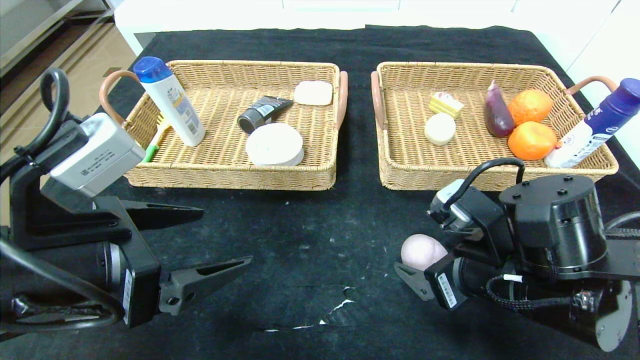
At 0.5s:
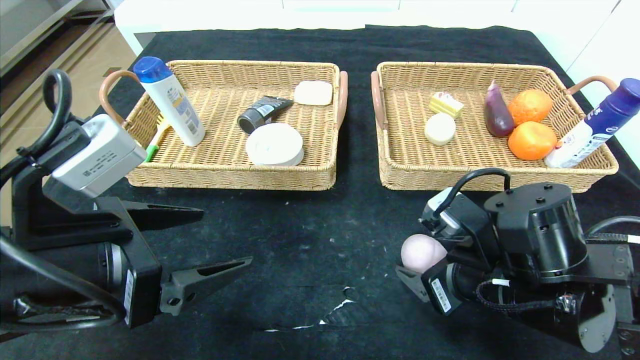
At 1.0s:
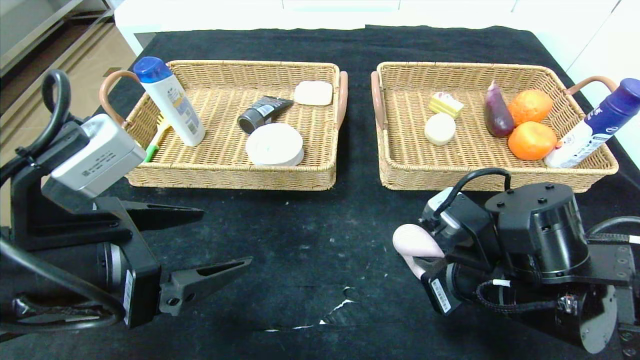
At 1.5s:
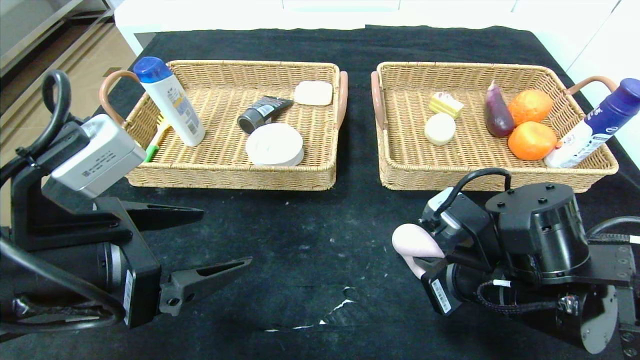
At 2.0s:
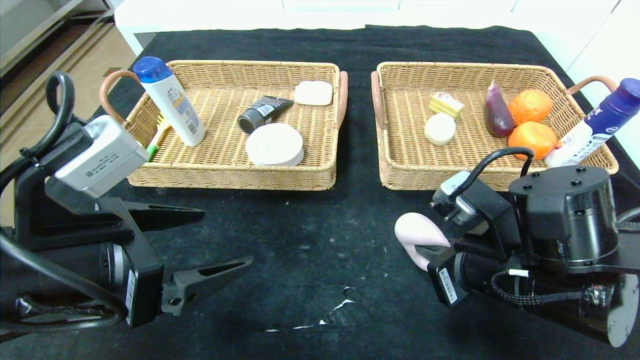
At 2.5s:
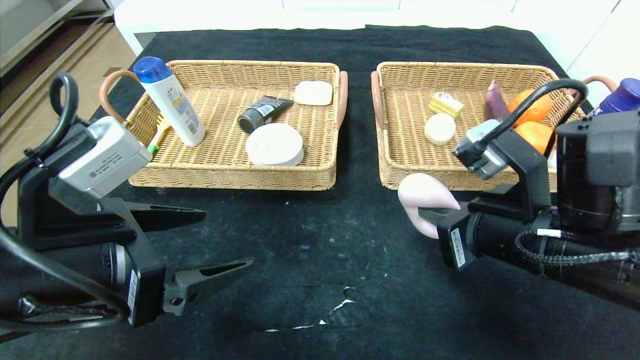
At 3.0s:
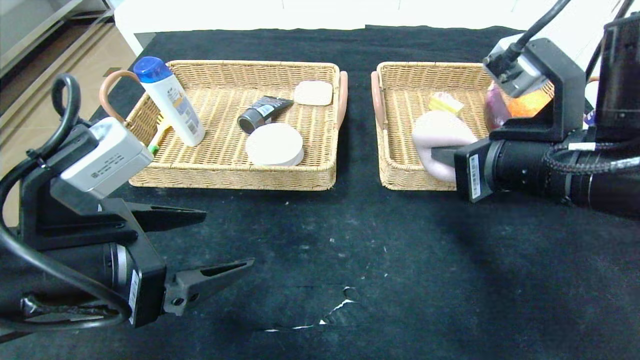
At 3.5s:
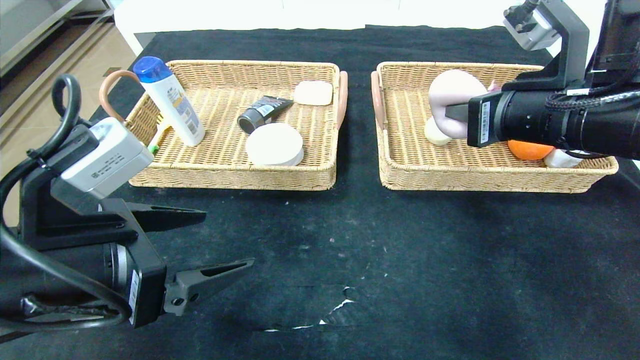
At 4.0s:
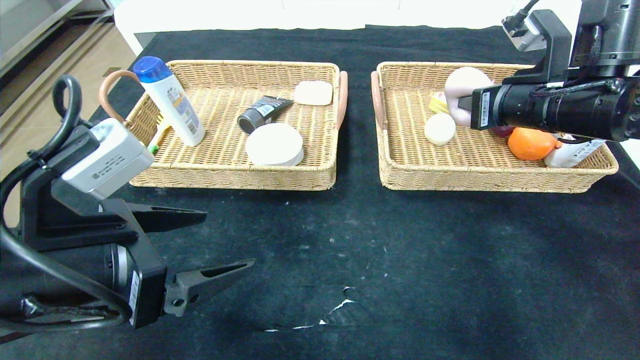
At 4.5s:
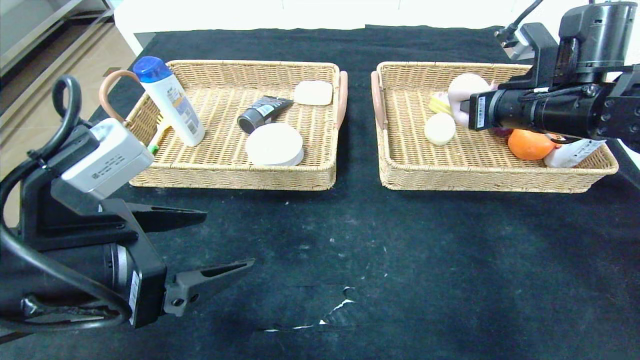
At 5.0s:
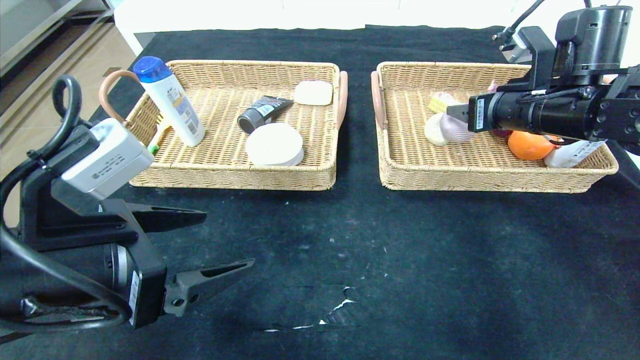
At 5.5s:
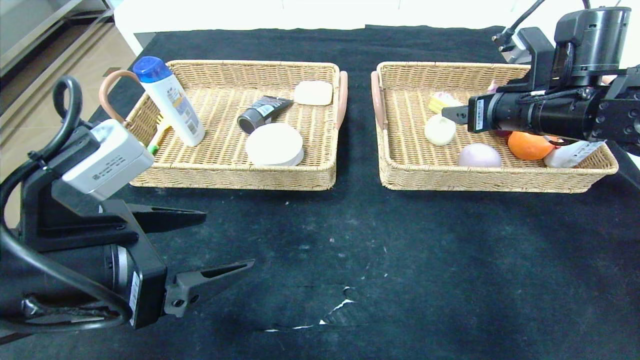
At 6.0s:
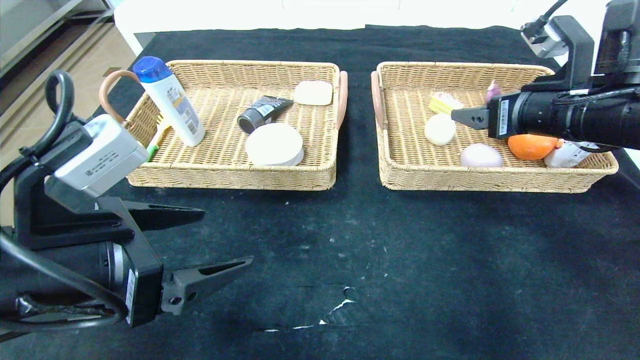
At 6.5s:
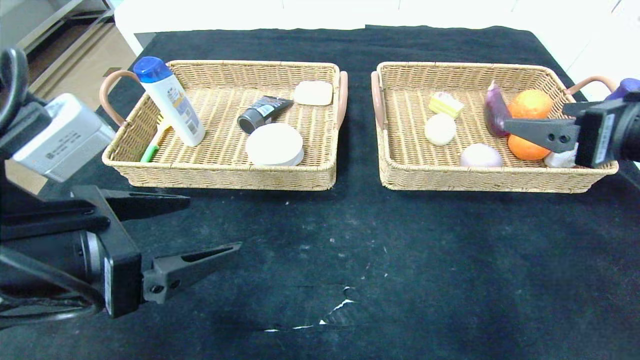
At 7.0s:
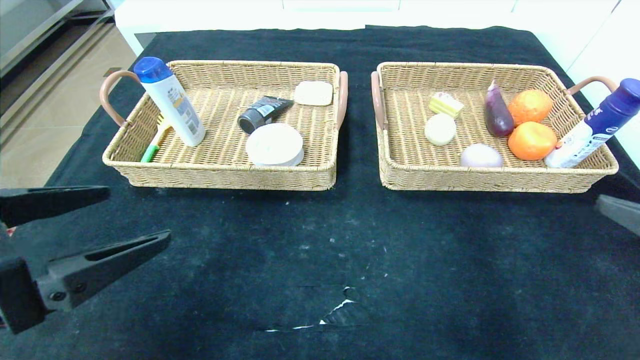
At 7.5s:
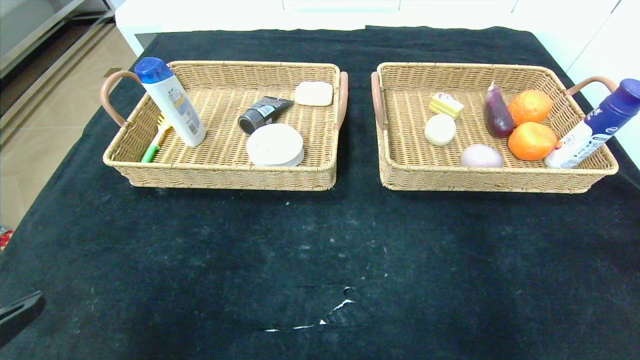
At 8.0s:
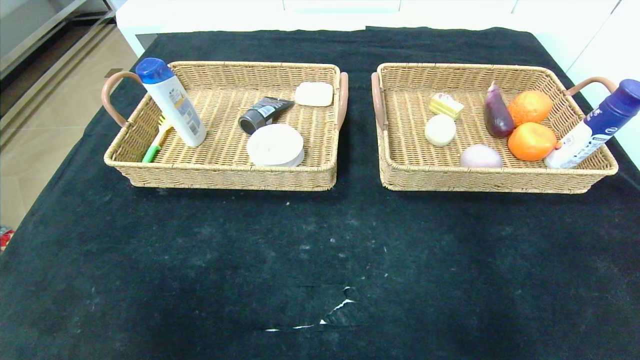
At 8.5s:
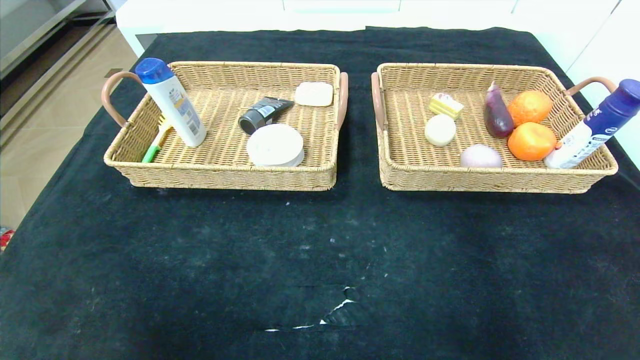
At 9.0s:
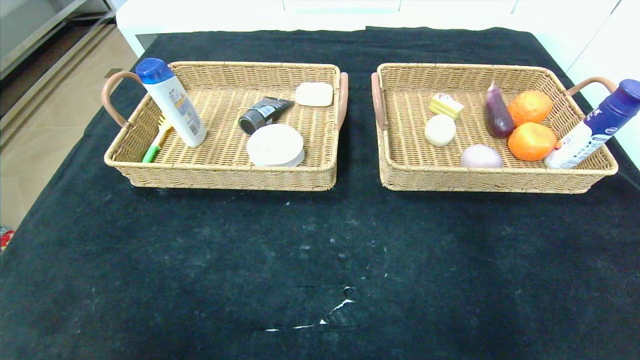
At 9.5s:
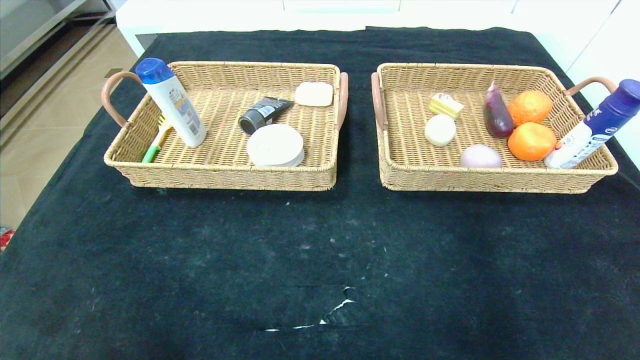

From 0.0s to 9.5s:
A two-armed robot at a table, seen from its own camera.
Step, from 0.0s to 5.5s: Grasp the peach and put it in the right basket.
From 0.0s to 2.0s: The right gripper closes its fingers.
From 2.0s to 4.0s: The right gripper heads upward, forward and to the right, covering roughly 20 cm.
From 4.0s to 5.5s: The right gripper opens its fingers.
From 5.5s to 7.5s: The left gripper travels backward and to the left by some 15 cm; the right gripper travels backward by some 35 cm.
From 7.5s to 9.5s: Both grippers travel together downward, approximately 20 cm.
